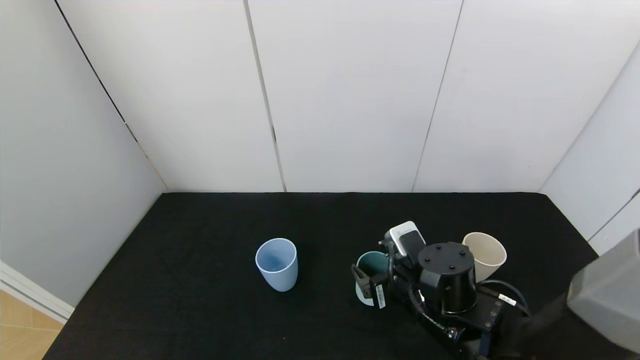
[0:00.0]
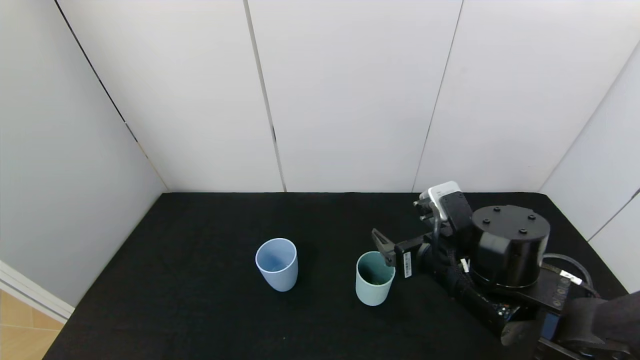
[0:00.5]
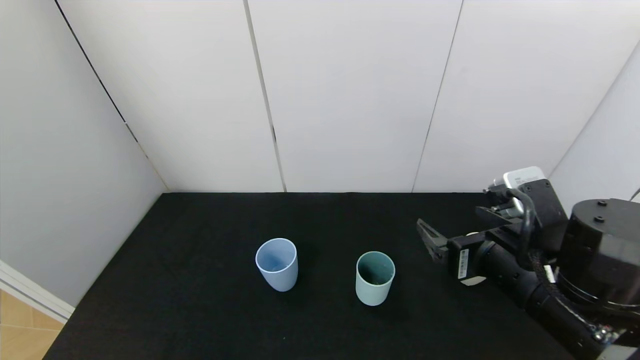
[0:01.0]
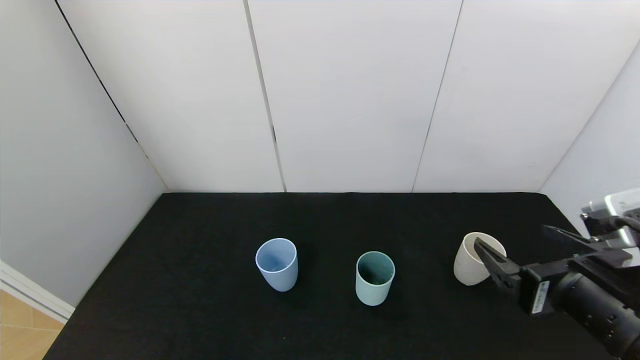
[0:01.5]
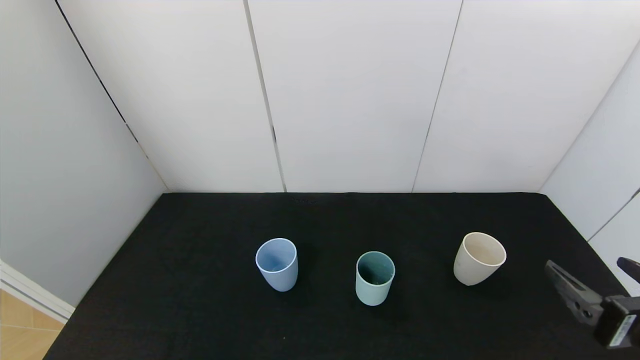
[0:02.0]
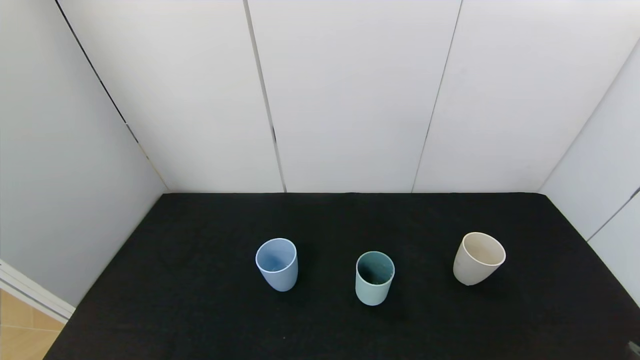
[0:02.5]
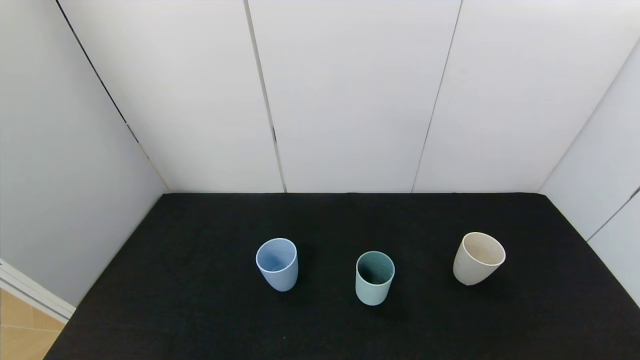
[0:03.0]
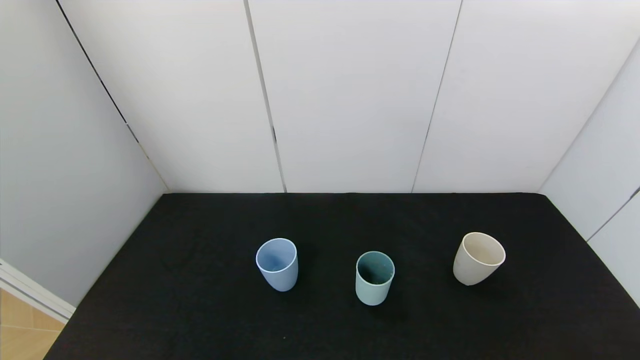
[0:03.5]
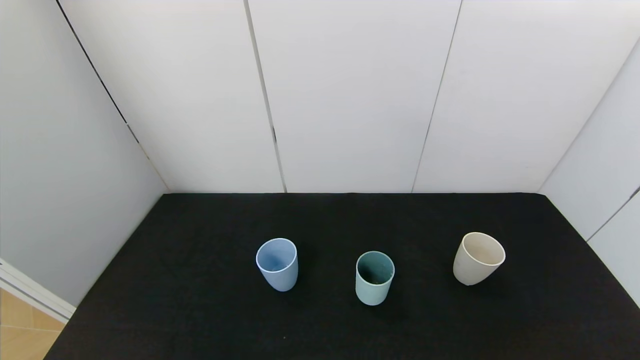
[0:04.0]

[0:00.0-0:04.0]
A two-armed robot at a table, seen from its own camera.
Task of the whole recording: use the gripper to pour the water into the other two cups on black table.
0:00.0 to 0:02.0: The right gripper goes roughly 25 cm to the right, backward and upward.
0:02.0 to 0:04.0: The right gripper shifts about 15 cm backward, downward and to the right.
